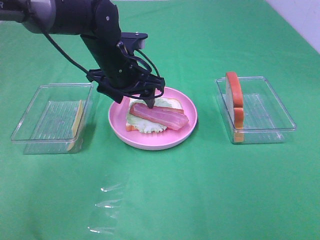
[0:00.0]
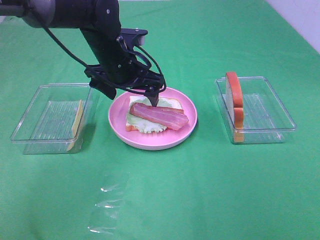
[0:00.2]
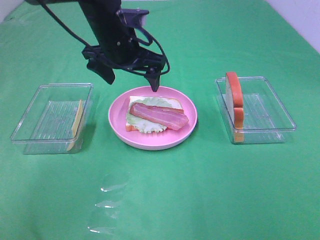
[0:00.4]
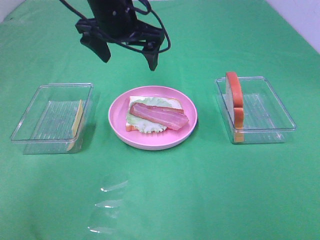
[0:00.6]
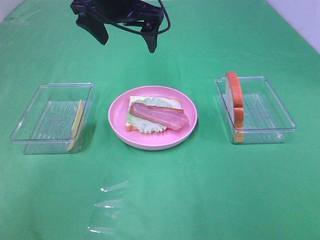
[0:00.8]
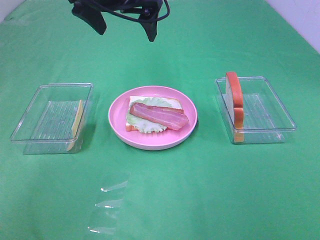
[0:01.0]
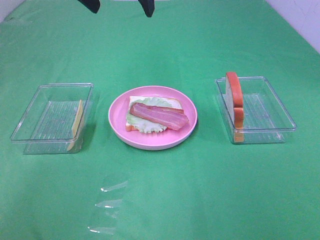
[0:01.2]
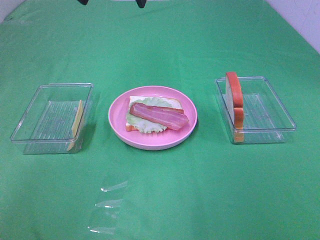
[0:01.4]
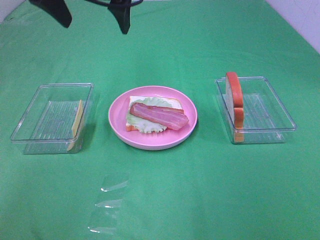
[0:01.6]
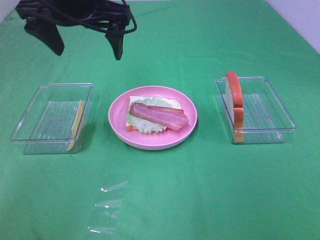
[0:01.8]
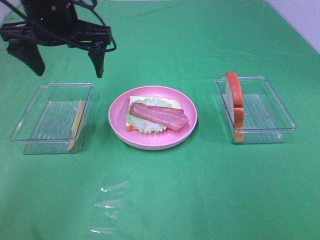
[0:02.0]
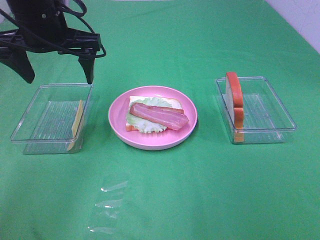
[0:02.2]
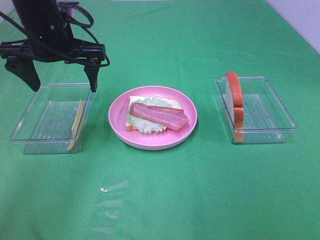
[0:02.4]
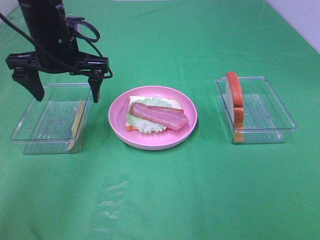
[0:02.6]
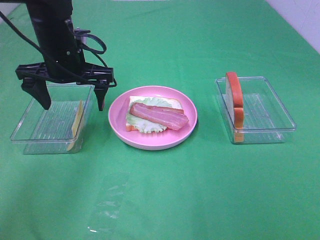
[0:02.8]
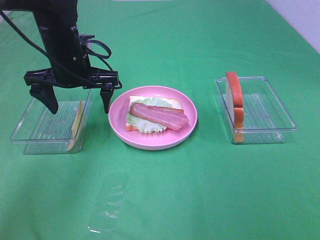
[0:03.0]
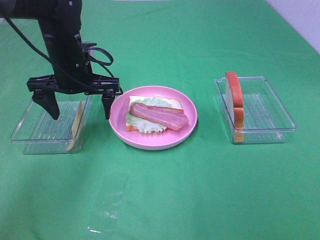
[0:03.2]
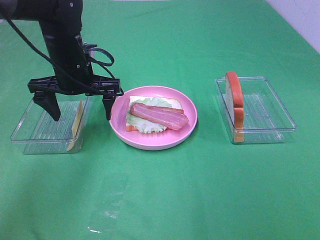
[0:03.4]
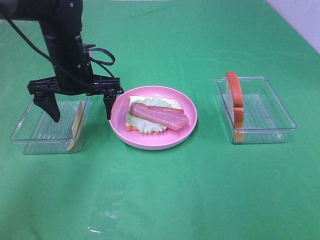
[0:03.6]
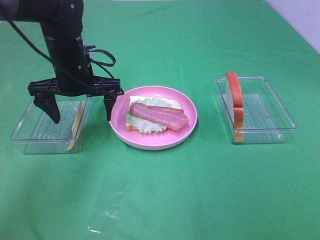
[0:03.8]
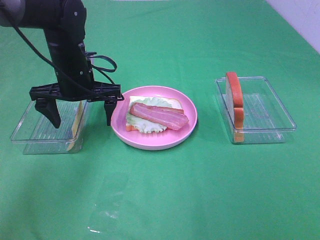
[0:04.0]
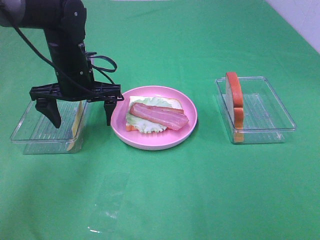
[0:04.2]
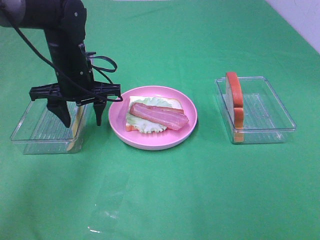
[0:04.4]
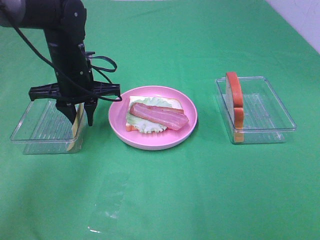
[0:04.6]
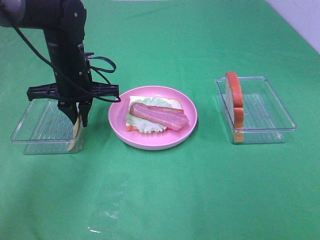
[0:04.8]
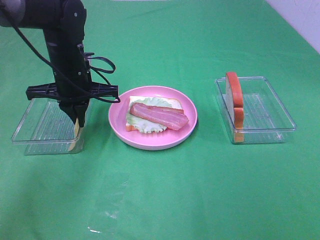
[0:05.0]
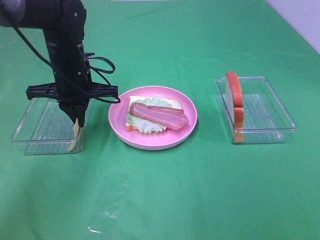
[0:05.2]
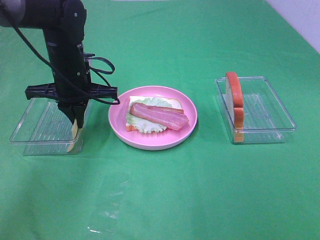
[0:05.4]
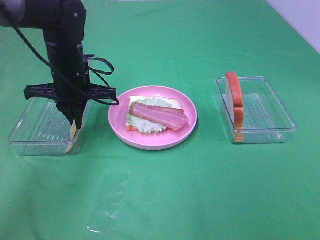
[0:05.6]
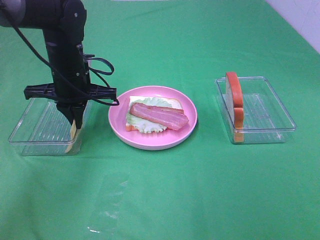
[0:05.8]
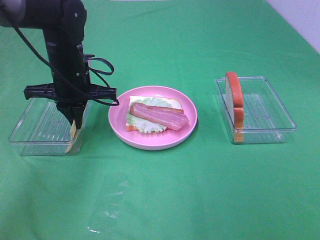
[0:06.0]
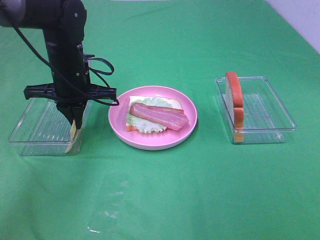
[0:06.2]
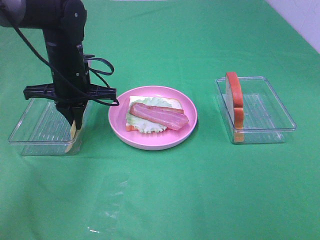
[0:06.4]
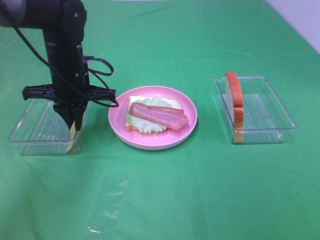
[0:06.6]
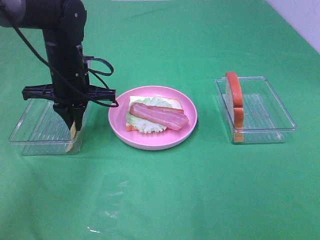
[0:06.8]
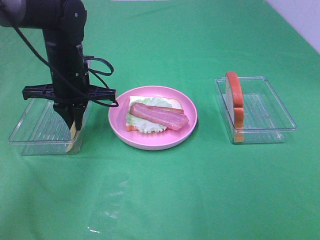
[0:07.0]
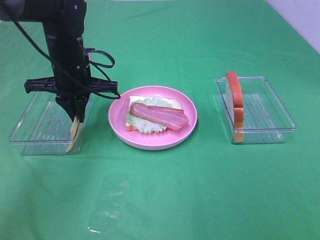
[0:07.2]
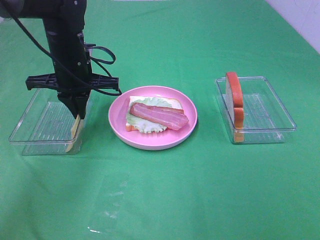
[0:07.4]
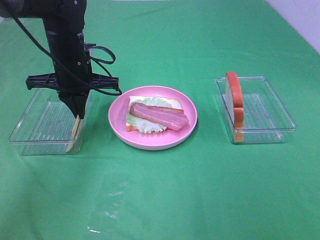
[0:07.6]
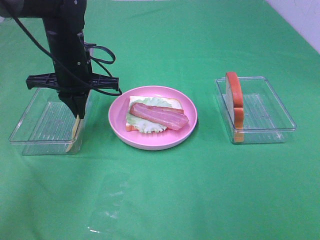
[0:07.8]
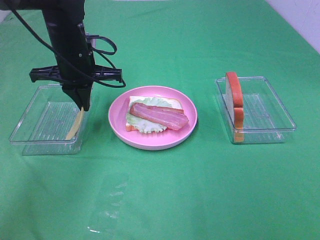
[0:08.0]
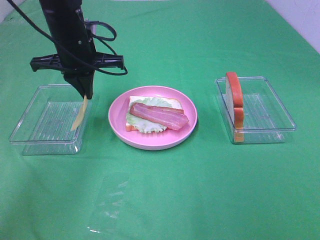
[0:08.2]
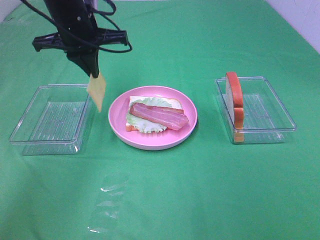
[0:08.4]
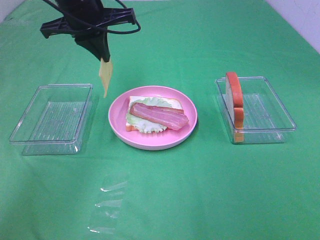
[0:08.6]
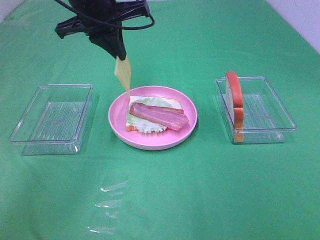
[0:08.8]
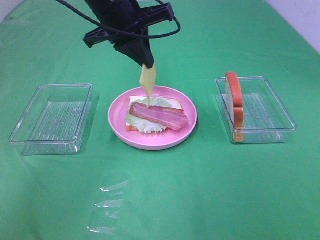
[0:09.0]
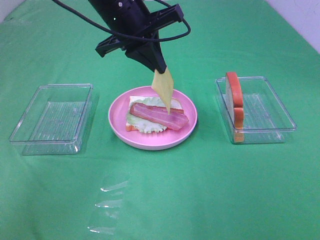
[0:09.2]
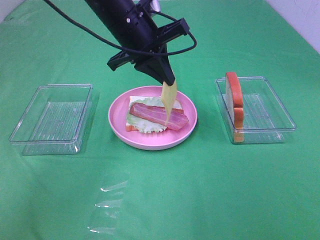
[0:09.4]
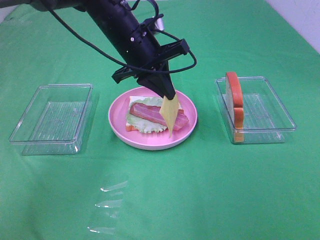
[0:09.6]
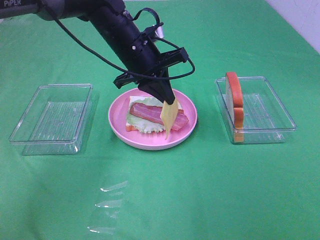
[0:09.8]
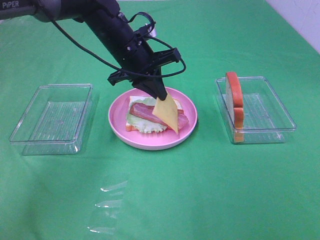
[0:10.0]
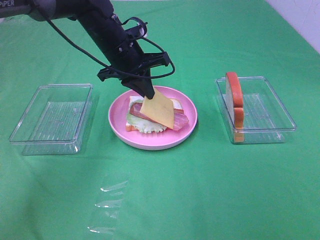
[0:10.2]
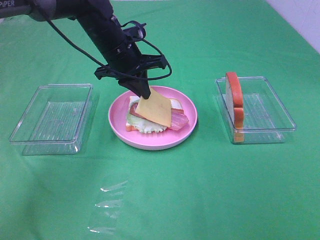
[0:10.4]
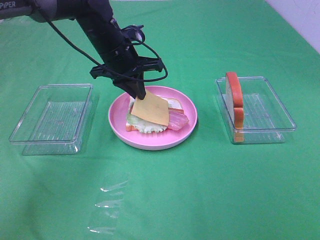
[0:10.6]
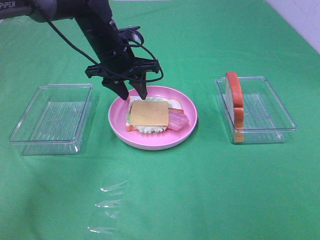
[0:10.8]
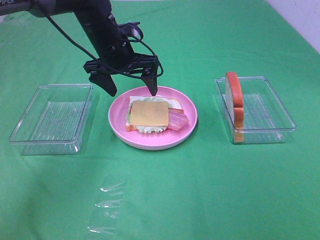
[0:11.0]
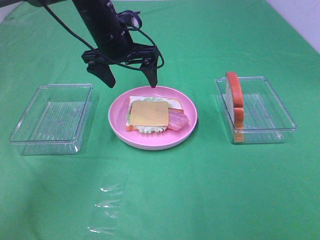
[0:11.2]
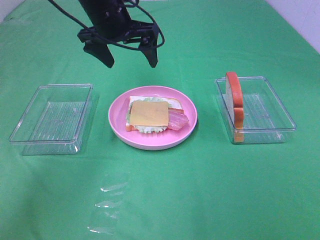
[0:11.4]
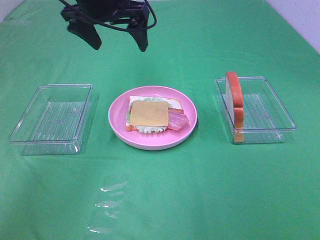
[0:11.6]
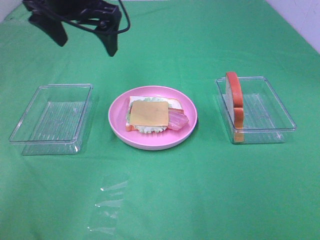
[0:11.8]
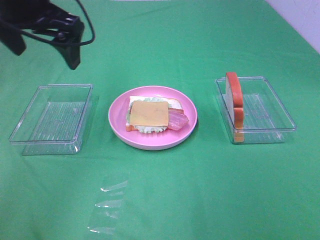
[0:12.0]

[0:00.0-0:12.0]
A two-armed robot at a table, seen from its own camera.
Task of the whole recording: Make sandwiches.
Step, 0:00.2 to 0:05.0: Left hand:grab the cheese slice.
Step, 0:05.2 to 0:10.8: Left hand:place the cheese slice on top of the bacon.
0:00.0 to 0:01.6: The left gripper moves upward, about 15 cm.
0:01.6 to 0:03.0: The left gripper moves downward, approximately 15 cm.
0:03.0 to 0:04.4: The left gripper closes.
0:04.4 to 0:06.0: The left gripper closes.
0:06.0 to 0:07.6: There are only small adjustments of the grippers.
0:07.6 to 0:09.0: The left gripper shifts approximately 15 cm upward and to the right.
0:09.0 to 0:10.4: The left gripper heads downward, covering about 10 cm.
0:10.4 to 0:12.0: The left gripper shifts approximately 20 cm upward, to the left and backward, and opens its fingers.

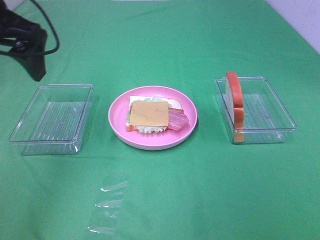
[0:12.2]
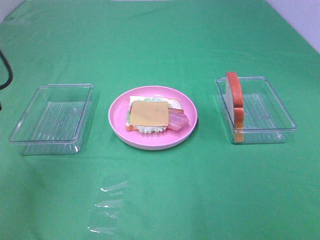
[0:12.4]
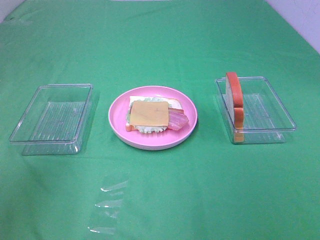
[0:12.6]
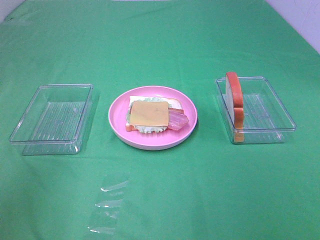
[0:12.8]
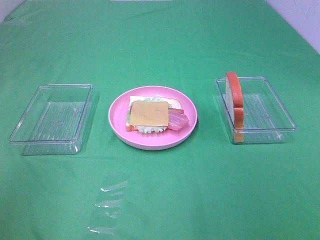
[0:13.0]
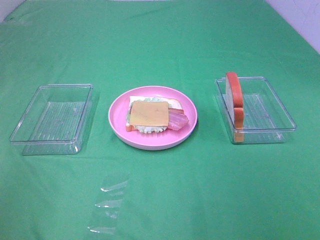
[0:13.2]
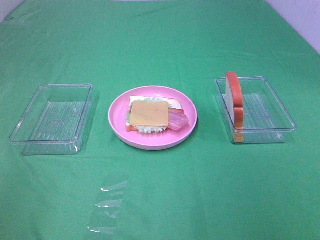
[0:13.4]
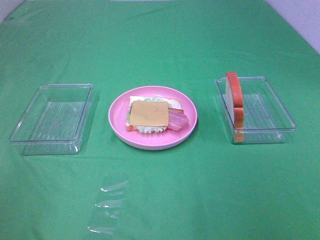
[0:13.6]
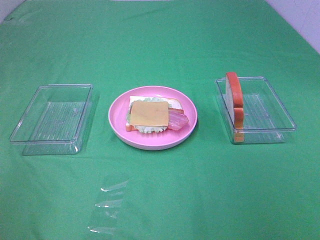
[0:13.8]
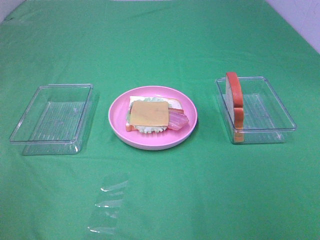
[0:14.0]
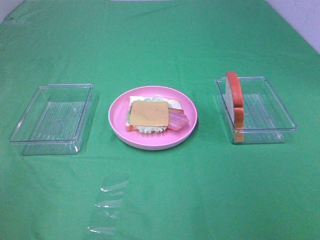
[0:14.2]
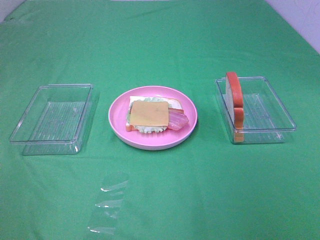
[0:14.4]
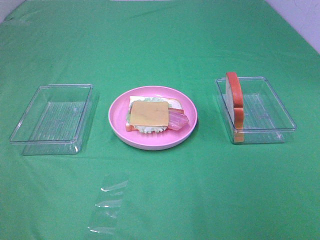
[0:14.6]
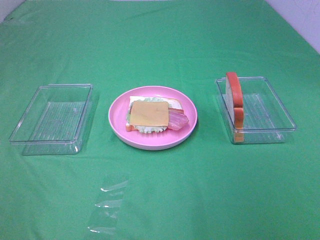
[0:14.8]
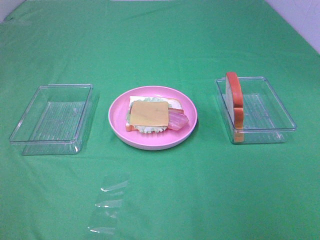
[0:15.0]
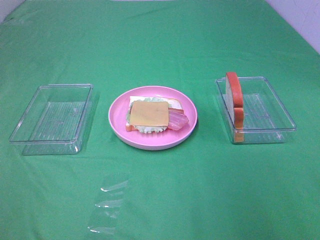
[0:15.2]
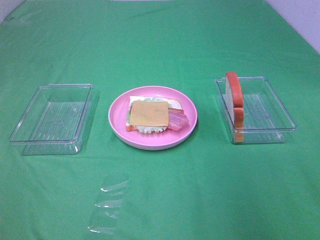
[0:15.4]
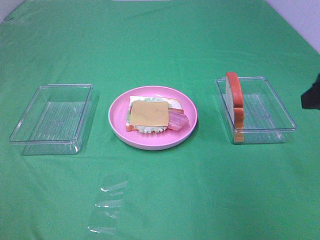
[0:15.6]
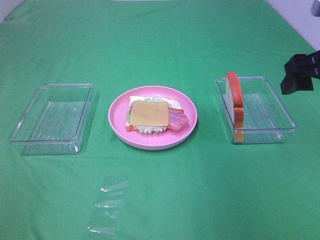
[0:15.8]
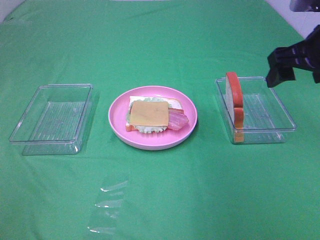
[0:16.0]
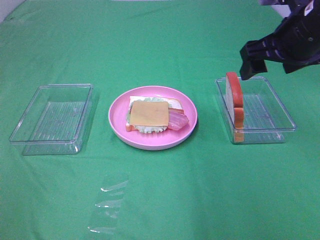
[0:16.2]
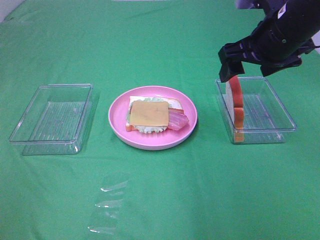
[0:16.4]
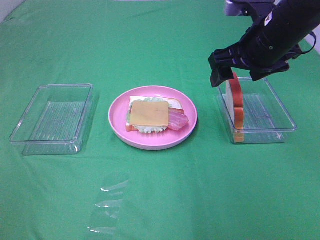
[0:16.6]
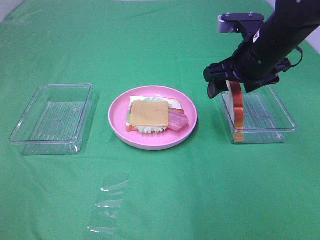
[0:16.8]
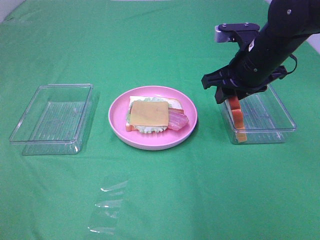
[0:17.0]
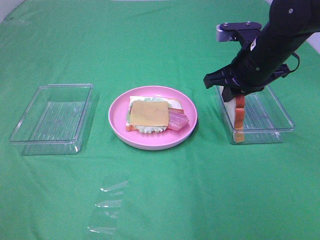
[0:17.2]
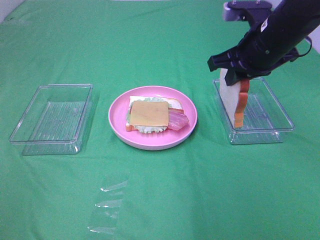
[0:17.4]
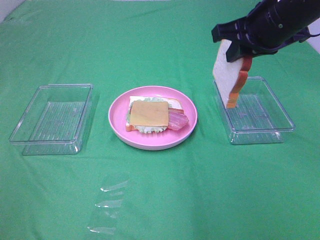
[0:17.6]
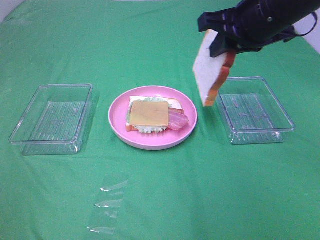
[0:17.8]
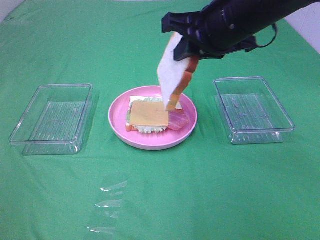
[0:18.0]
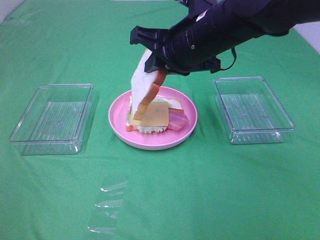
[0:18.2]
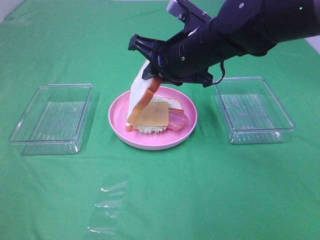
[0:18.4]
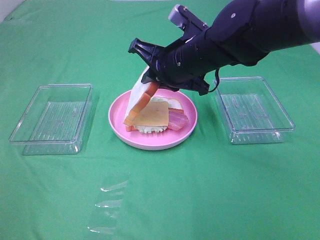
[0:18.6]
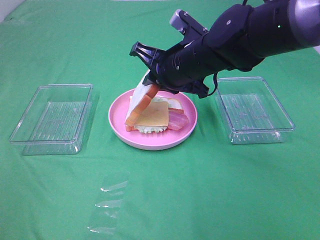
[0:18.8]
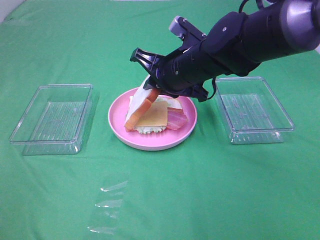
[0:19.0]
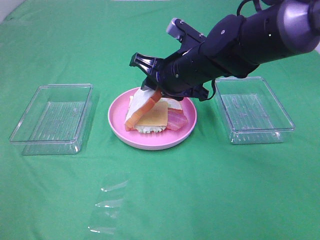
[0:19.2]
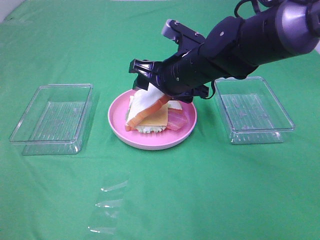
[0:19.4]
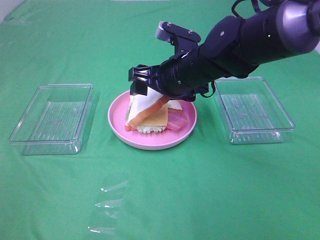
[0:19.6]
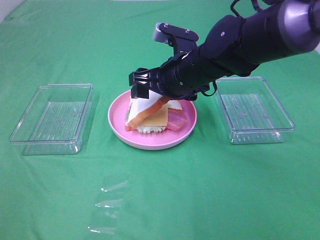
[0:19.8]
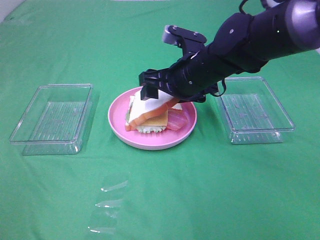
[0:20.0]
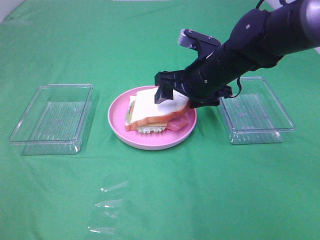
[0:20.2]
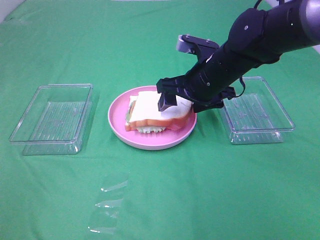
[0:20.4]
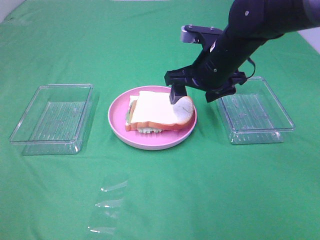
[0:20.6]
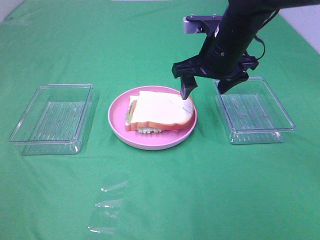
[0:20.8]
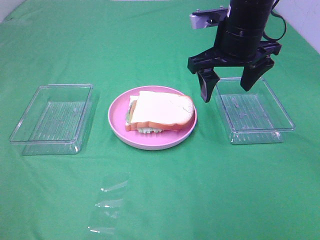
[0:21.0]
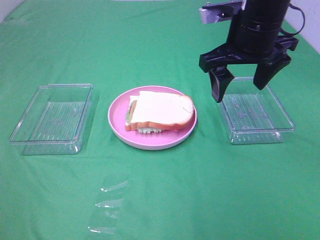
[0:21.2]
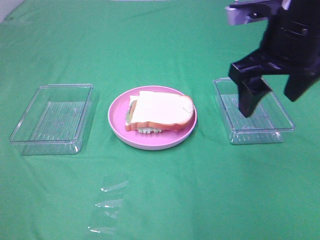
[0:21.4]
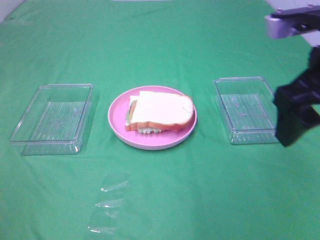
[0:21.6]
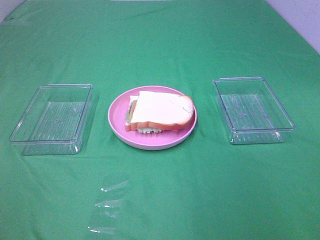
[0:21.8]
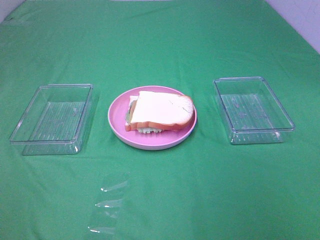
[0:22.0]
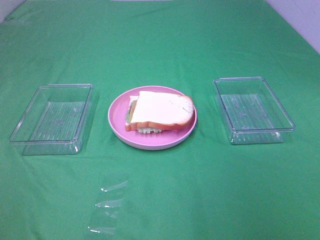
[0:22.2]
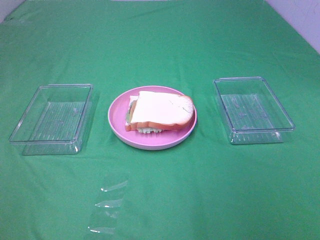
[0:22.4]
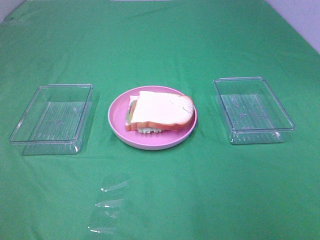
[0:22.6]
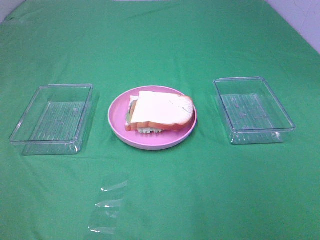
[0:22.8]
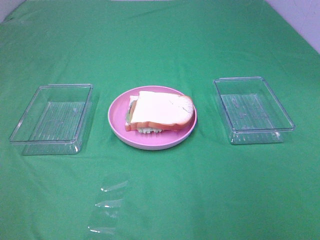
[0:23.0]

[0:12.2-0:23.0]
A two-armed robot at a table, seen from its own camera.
Task of the whole recording: Make sandwiches.
Step, 0:12.2 to 0:17.2: Right hand:grab the bread slice.
Step, 0:17.4 to 0:20.6: Right hand:place the bread slice on the cheese slice.
0:12.2 to 0:13.8: The left gripper goes about 25 cm backward.
0:15.2 to 0:16.8: The right gripper is displaced forward and to the left by some 30 cm.
0:16.8 to 0:18.4: The right gripper travels to the left by roughly 10 cm, and closes up.
0:18.4 to 0:20.0: The right gripper changes place by about 5 cm, and opens up.
0:20.0 to 0:21.4: The right gripper goes roughly 20 cm upward, to the right and backward.
0:21.4 to 0:23.0: The right gripper moves backward and to the right, about 30 cm.
